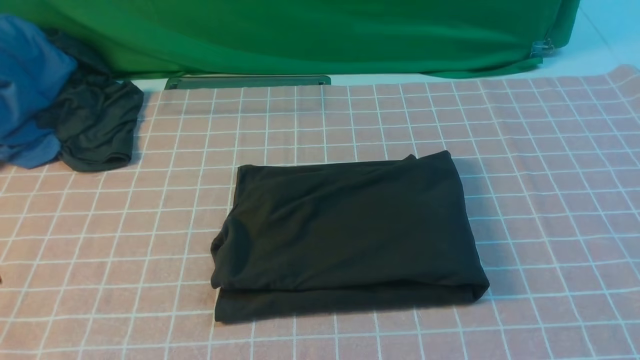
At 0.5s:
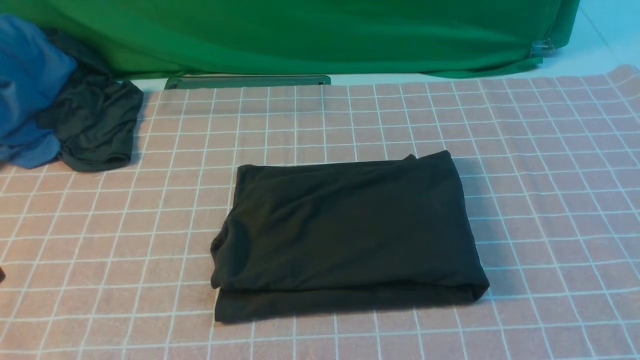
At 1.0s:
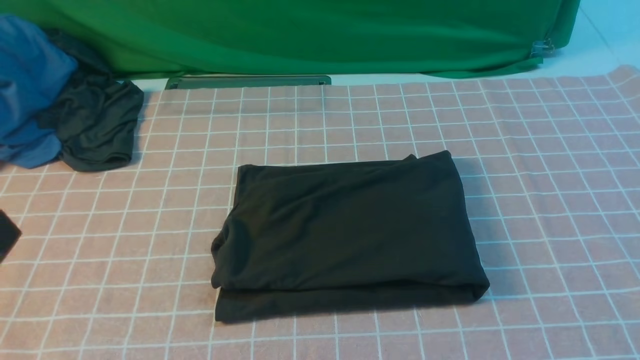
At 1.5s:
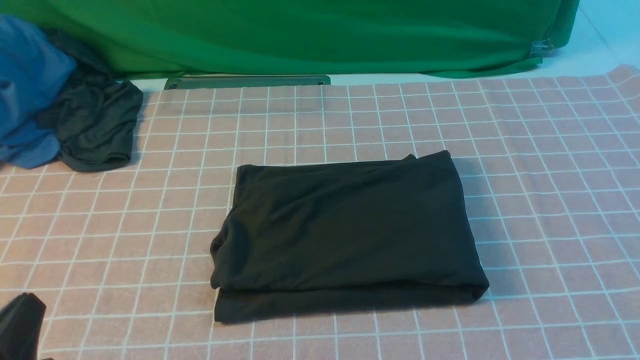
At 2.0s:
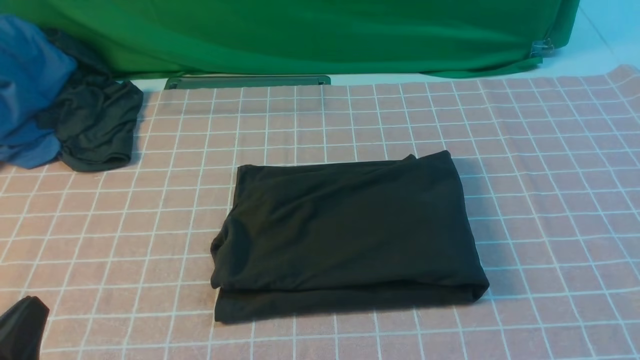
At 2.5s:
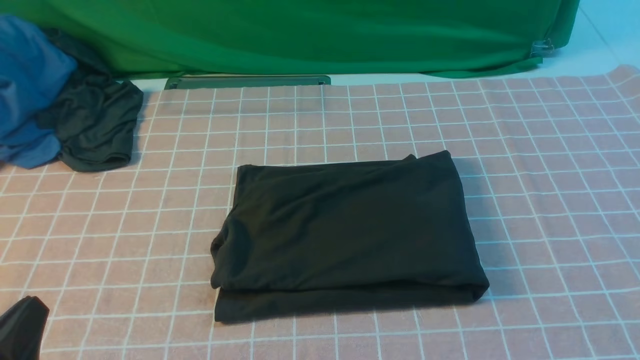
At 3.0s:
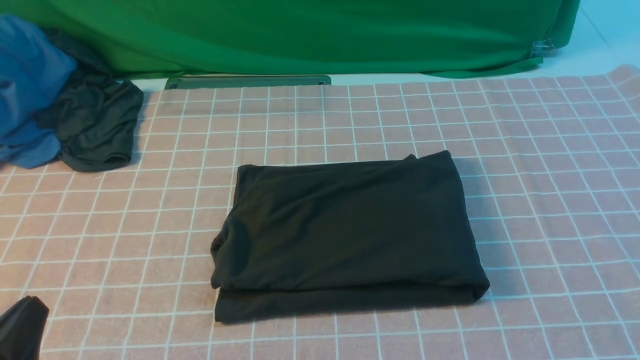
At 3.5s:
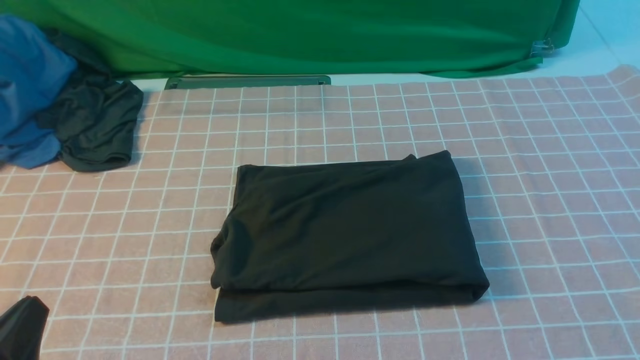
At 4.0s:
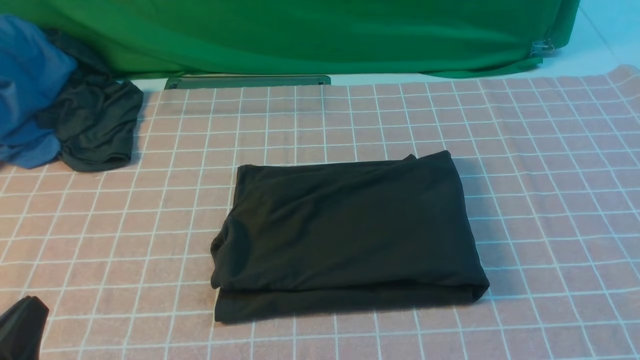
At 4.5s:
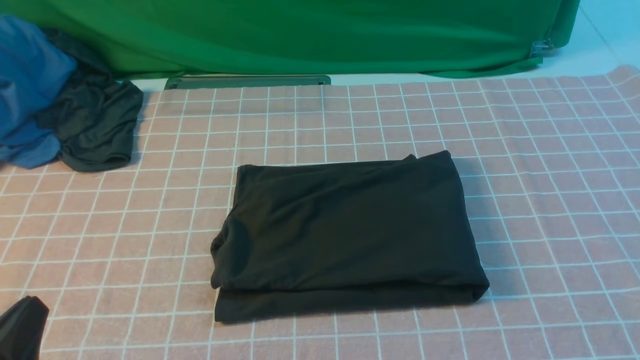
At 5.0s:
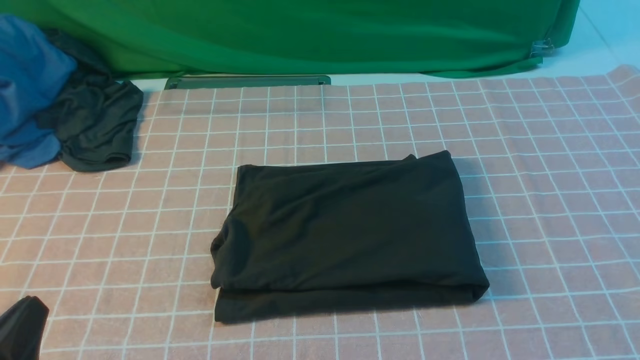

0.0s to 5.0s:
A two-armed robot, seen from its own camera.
0.0s to 2.5s: The left gripper shifts some 15 cm downward.

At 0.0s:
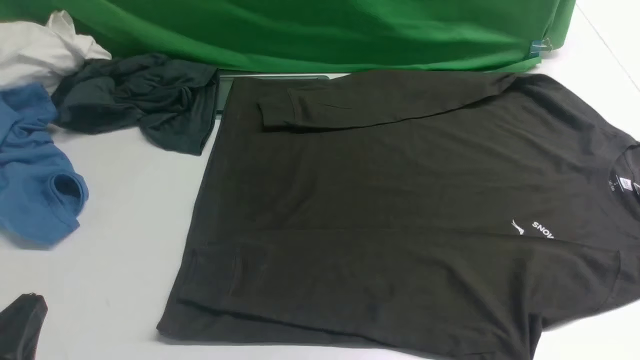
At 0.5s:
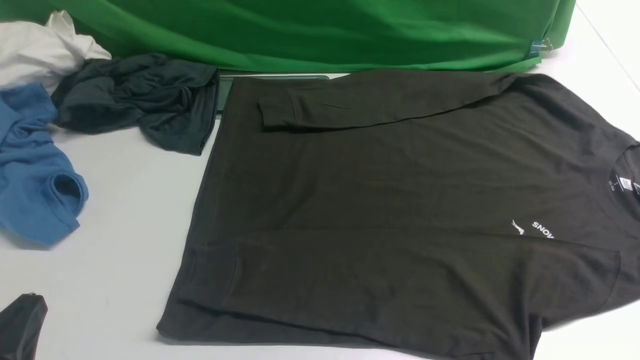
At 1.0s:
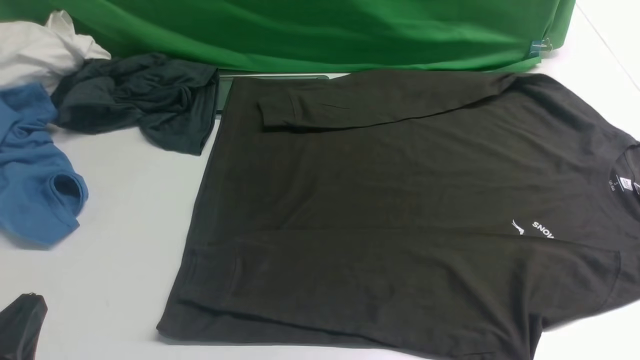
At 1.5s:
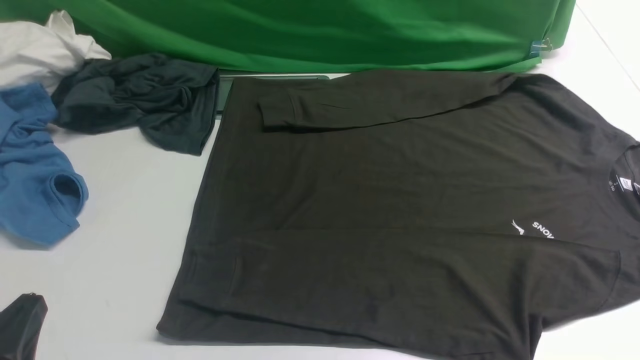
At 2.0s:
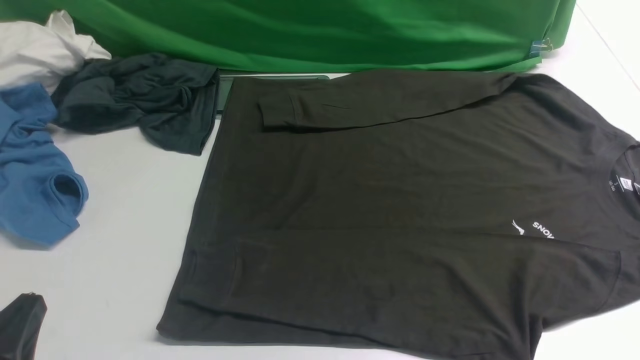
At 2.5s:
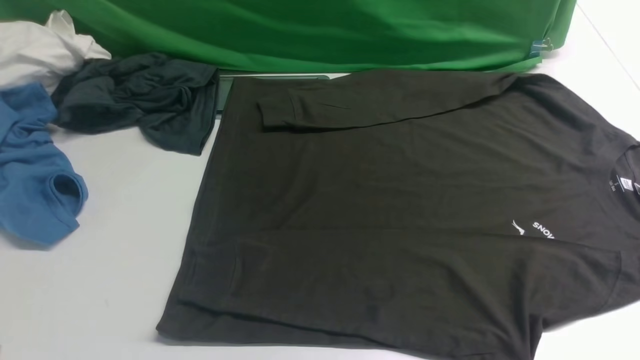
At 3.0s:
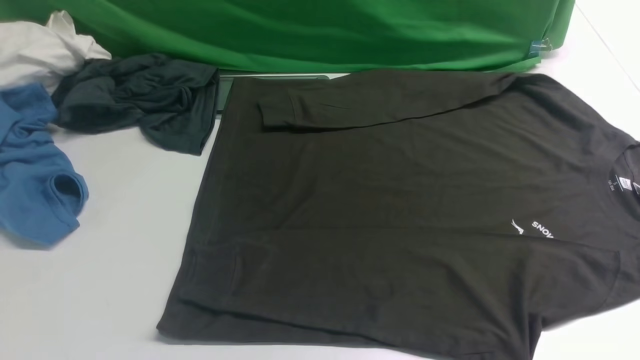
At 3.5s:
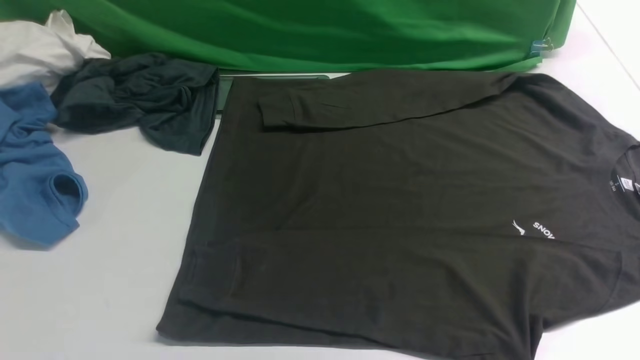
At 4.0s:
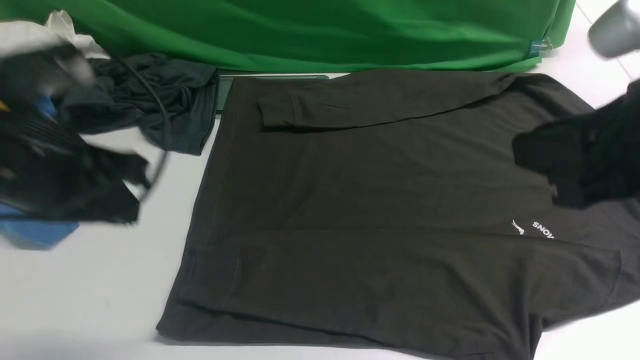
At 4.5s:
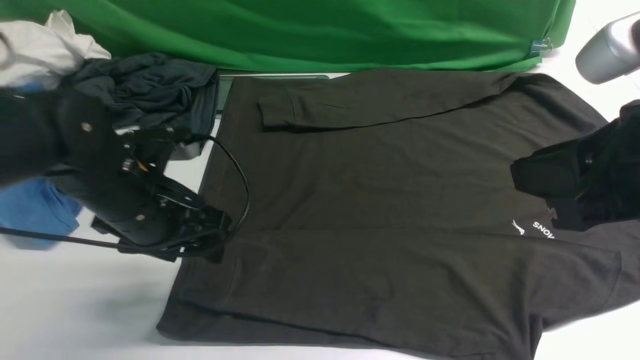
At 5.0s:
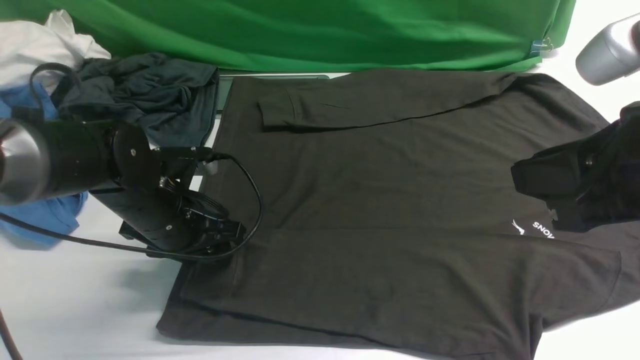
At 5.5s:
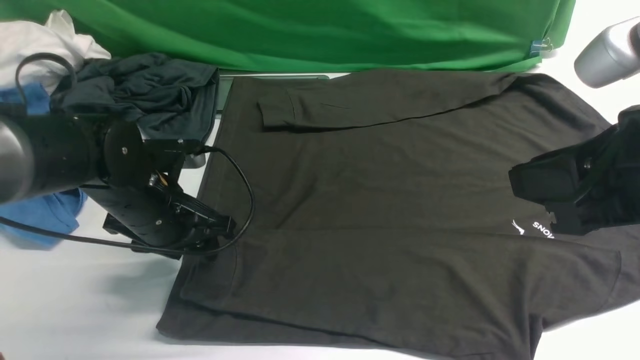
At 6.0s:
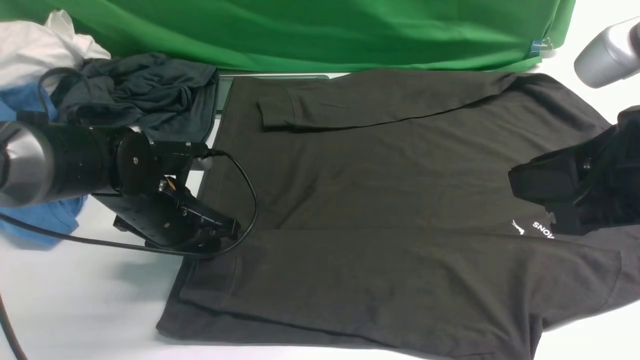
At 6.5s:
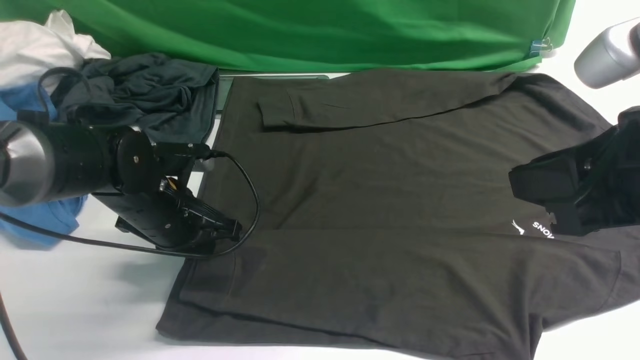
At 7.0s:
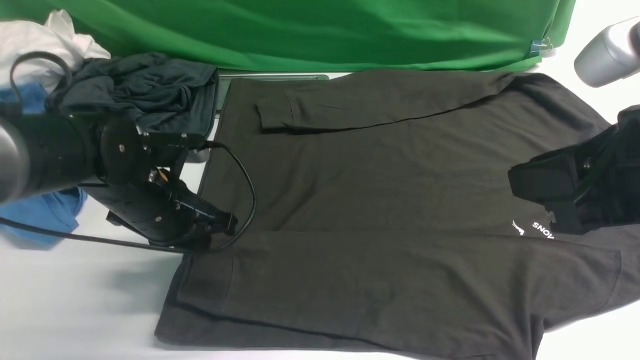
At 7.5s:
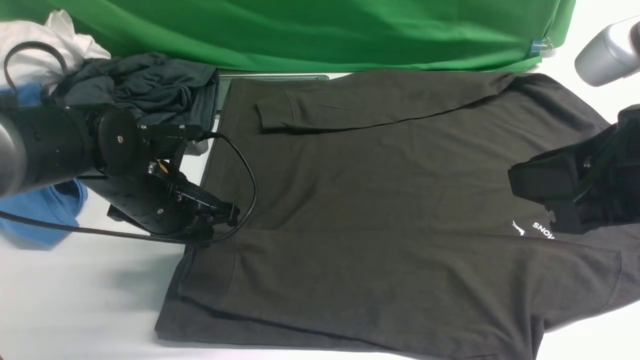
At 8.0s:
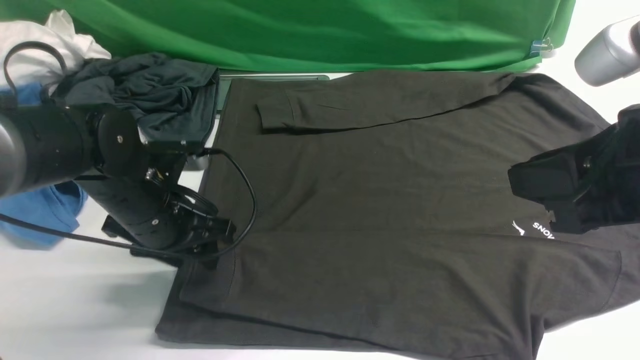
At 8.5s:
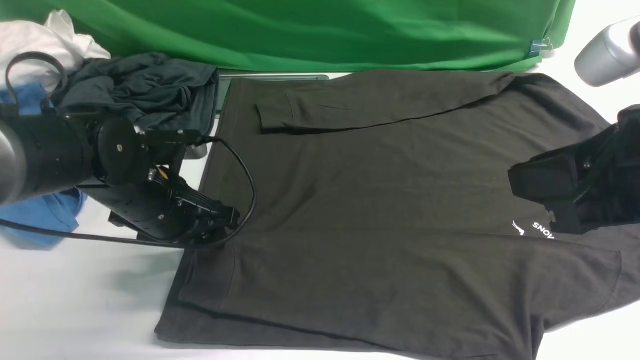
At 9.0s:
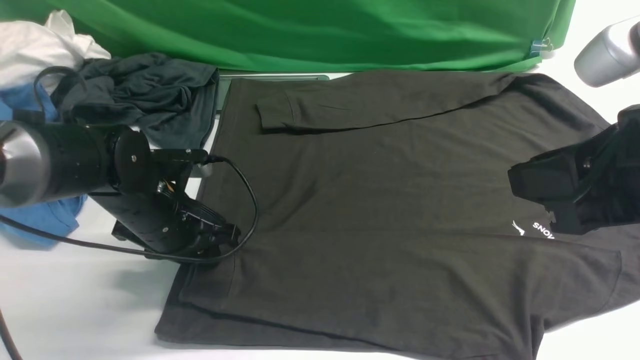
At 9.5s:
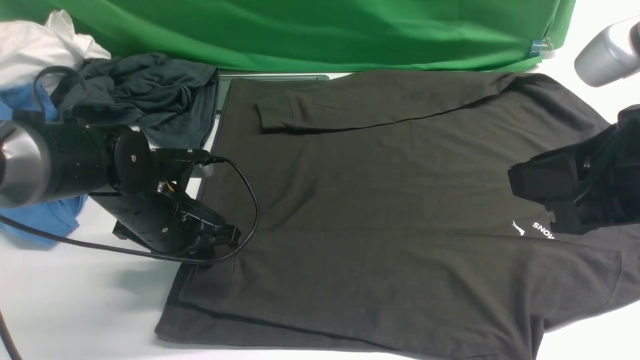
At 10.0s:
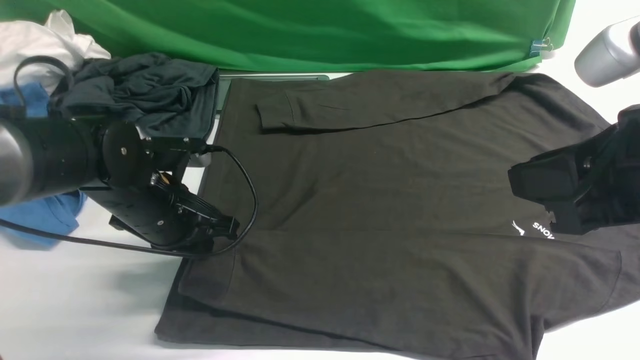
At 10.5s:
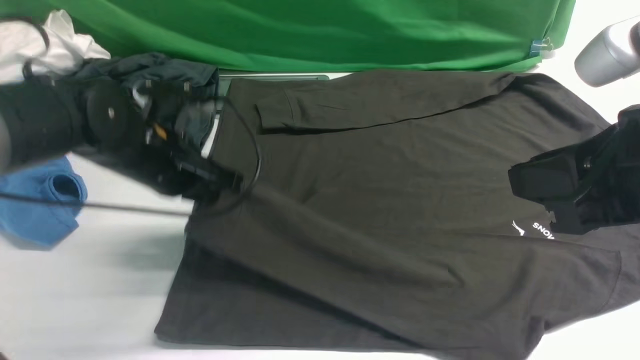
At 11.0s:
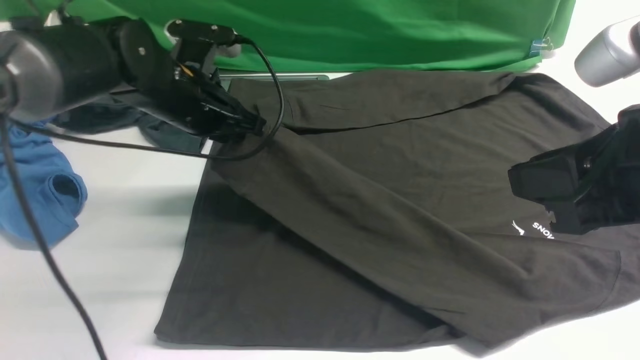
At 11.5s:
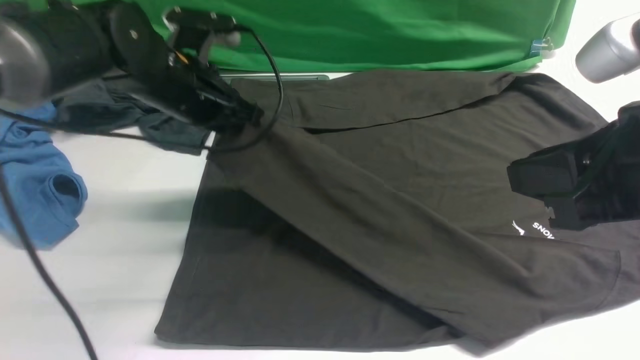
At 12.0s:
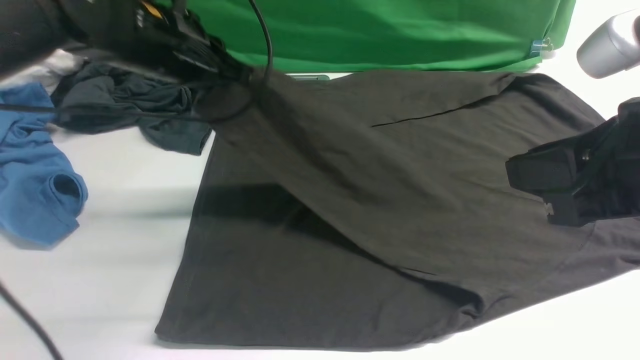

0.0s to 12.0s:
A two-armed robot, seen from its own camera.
Step, 0.0s to 10.0s: use the left arm to clamp the cuff closest to it.
2.0s to 4.0s: The left gripper moves forward and upward, approximately 20 cm. Meanwhile the right gripper shifts roughly 20 cm upward, forward and to the left.
4.0s to 6.0s: The left gripper moves downward and forward, roughly 20 cm.
6.0s to 8.0s: There are only small adjustments of the grippers.
8.0s to 10.0s: The left gripper closes its fingers.
10.0s to 12.0s: The left gripper travels upward and forward by some 15 cm.

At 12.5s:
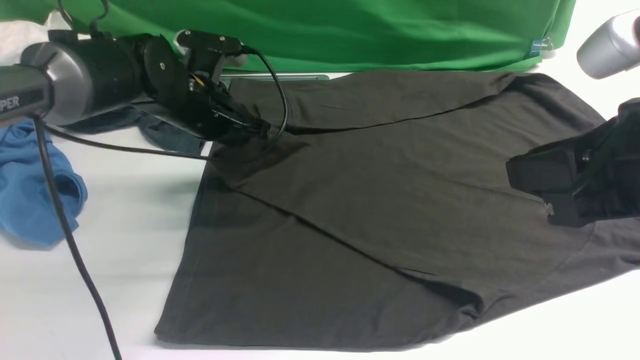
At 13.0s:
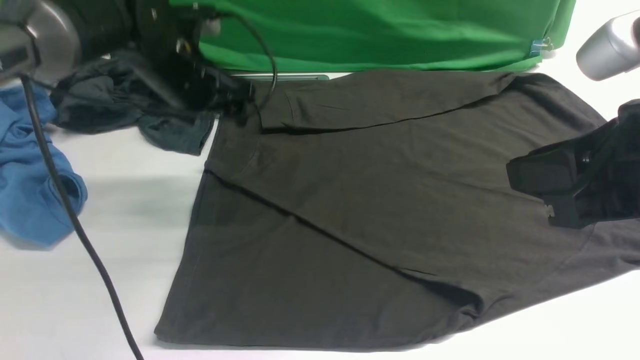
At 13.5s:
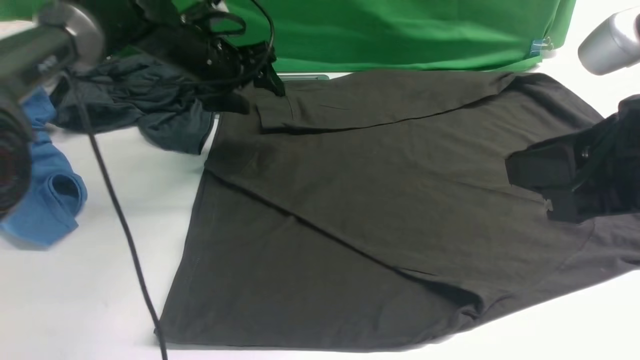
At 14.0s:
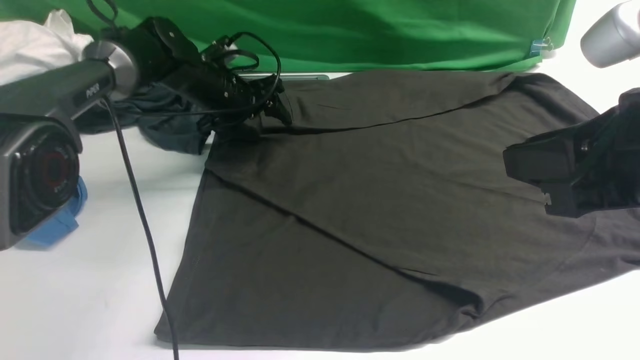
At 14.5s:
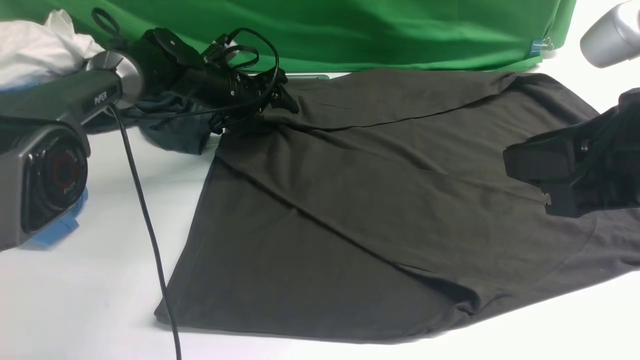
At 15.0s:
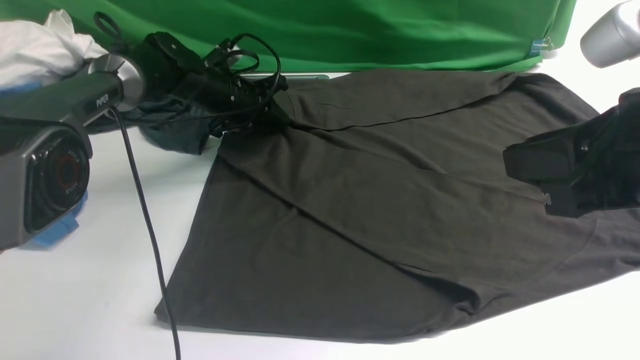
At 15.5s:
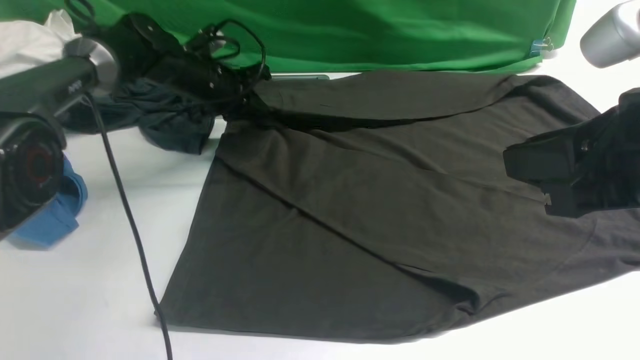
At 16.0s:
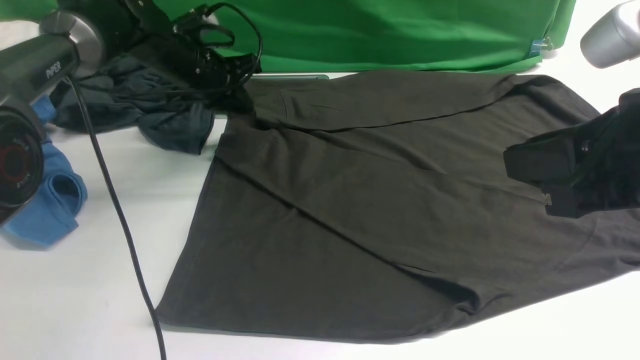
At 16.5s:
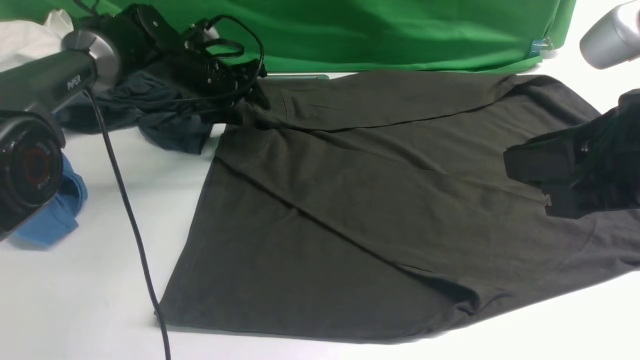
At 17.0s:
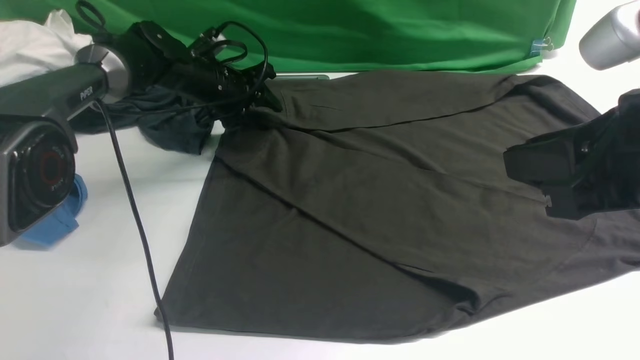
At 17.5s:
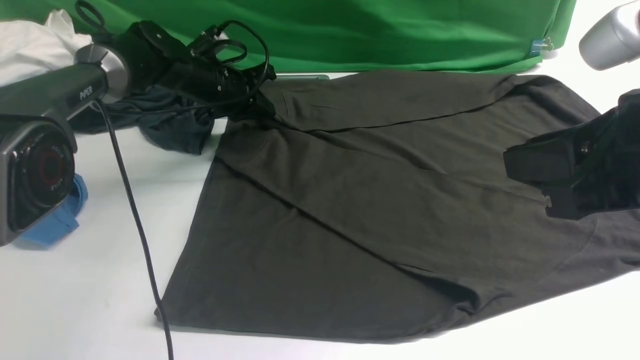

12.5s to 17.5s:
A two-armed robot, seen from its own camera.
12.5s to 15.0s: The left gripper goes roughly 15 cm forward and downward, and opens, then closes once more.
15.0s to 17.5s: The left gripper opens, then closes again.
